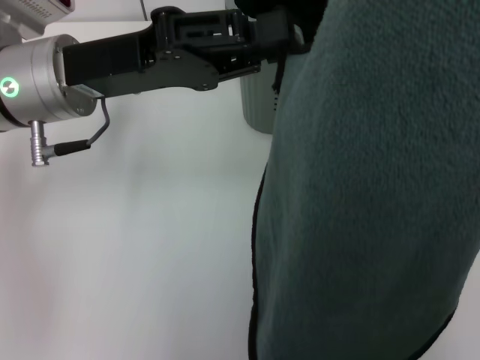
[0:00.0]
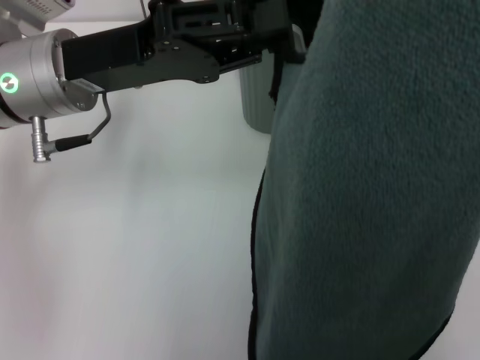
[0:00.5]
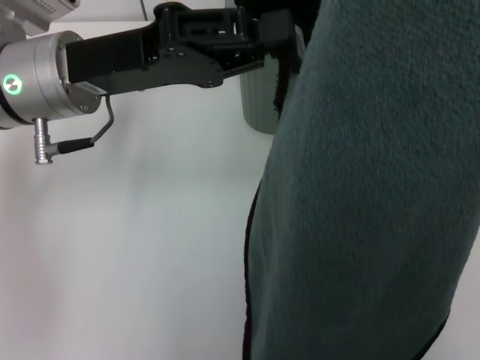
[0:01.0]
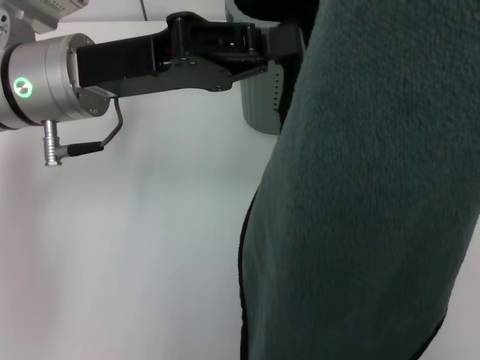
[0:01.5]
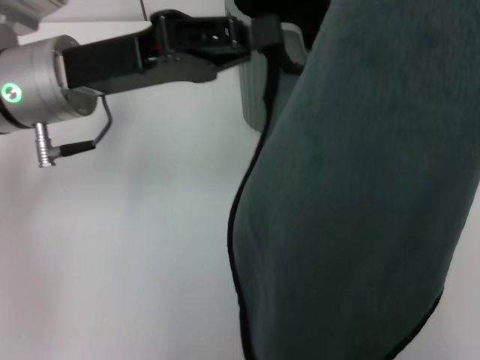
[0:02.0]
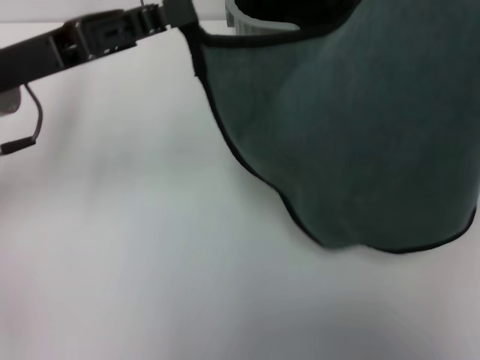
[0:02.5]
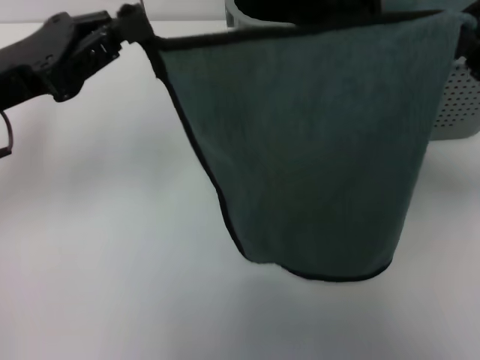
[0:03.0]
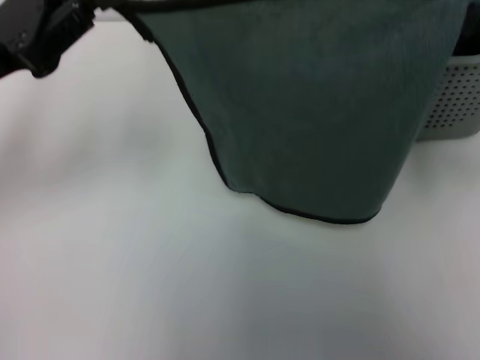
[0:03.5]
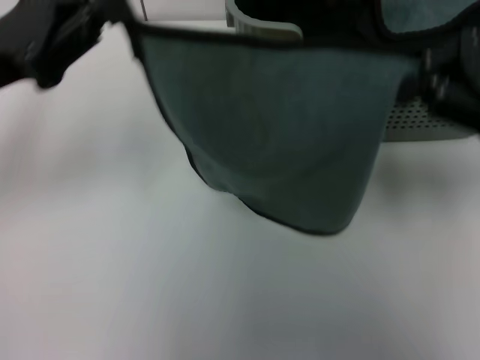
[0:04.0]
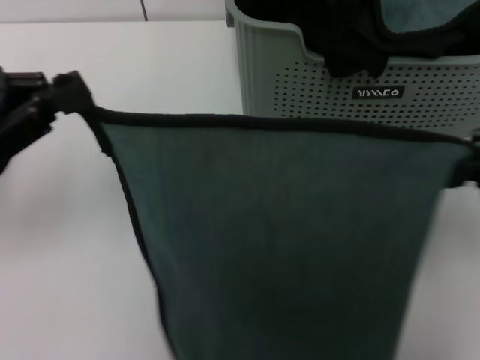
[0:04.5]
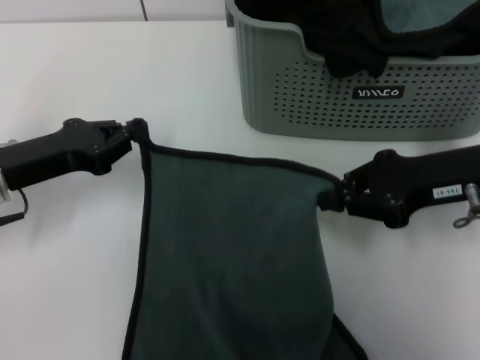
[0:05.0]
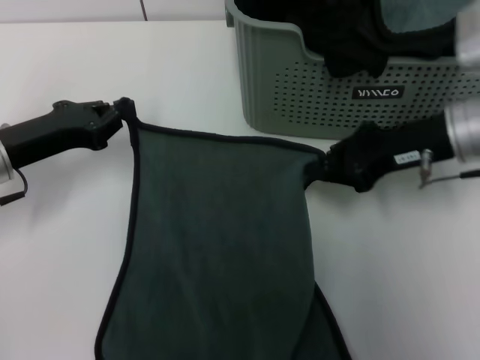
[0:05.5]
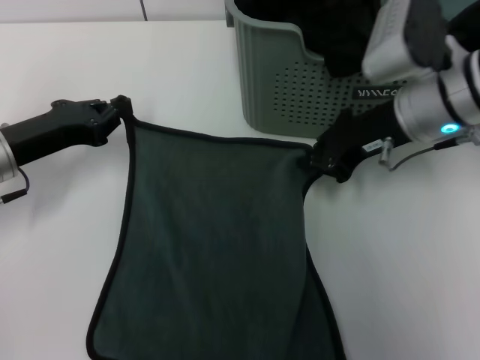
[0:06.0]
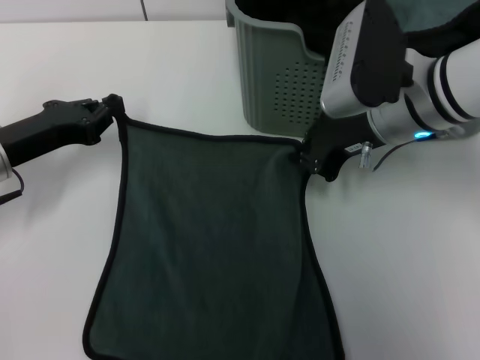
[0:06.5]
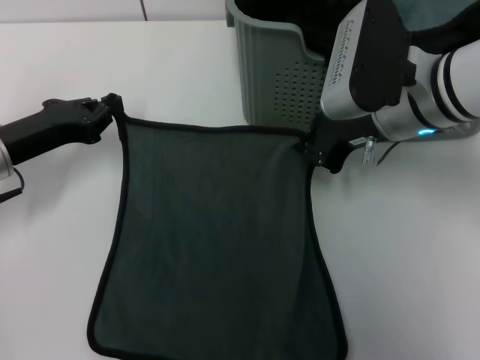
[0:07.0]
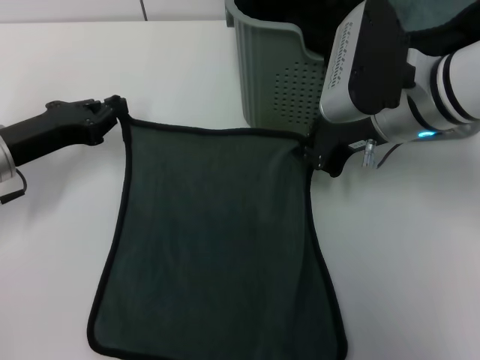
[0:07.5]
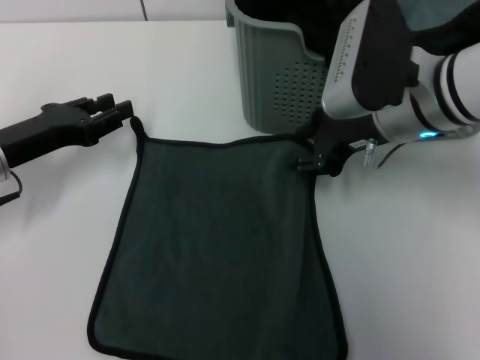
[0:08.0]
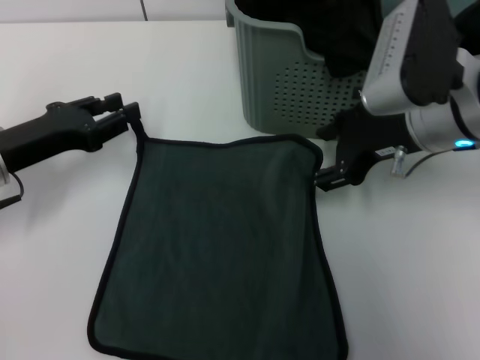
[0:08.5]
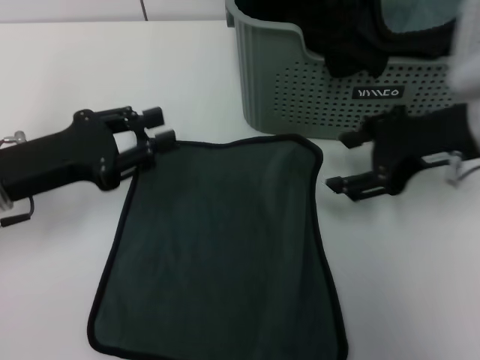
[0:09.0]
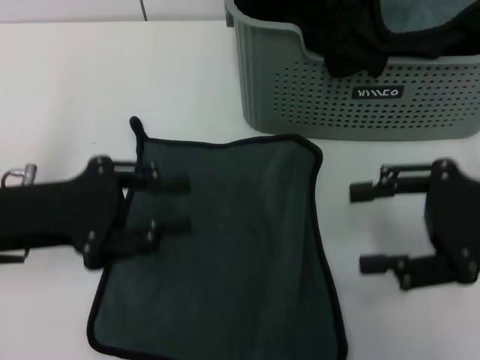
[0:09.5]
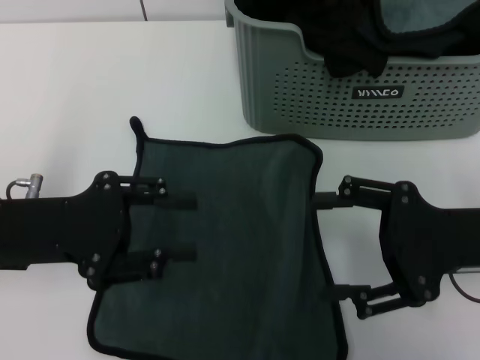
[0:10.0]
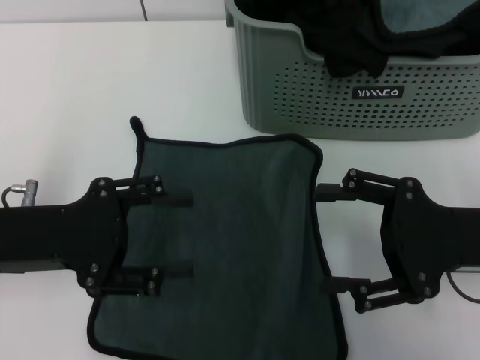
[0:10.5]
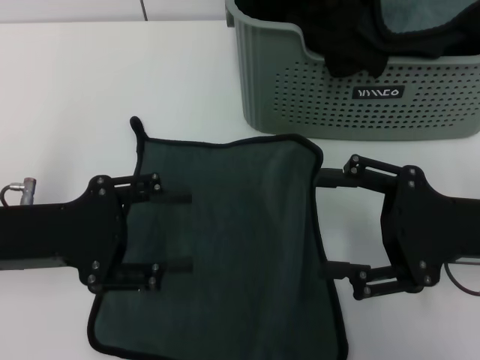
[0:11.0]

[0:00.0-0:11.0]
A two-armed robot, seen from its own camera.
Task of the whole recording: pick up the towel from the storage box and lay it flat on the table.
Step, 0:00.0 to 0:08.0: Spread the towel flat with the right gripper.
0:00.0 to 0:02.0: The left gripper closes.
0:02.0 to 0:03.5: The left gripper moves to the left, about 10 cm; the right gripper goes about 15 cm downward and to the right.
0:03.5 to 0:05.5: The right gripper is displaced to the left and downward by some 10 cm. Meanwhile the left gripper travels downward by roughly 10 cm.
0:05.5 to 0:07.5: The right gripper shifts roughly 5 cm to the left.
0:07.5 to 0:09.0: The left gripper moves roughly 5 cm, and opens up. Meanwhile the right gripper shifts about 5 cm to the right, and opens up.
0:09.0 to 0:11.0: The right gripper heads downward and backward, covering about 10 cm.
